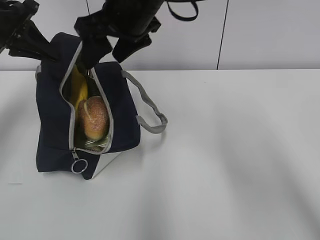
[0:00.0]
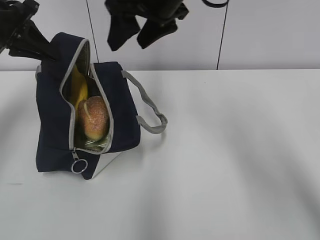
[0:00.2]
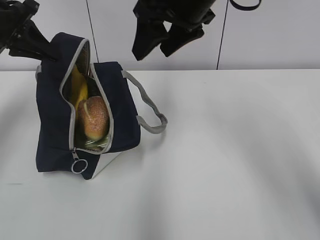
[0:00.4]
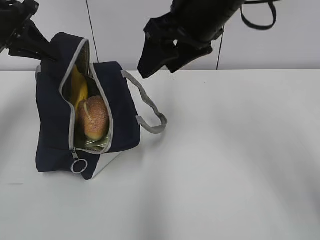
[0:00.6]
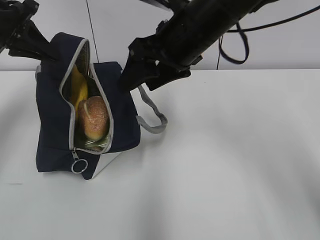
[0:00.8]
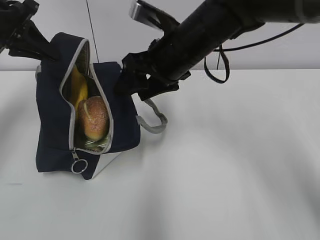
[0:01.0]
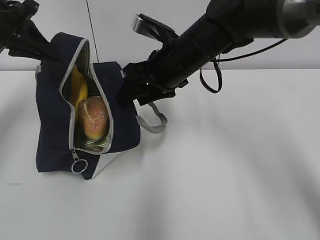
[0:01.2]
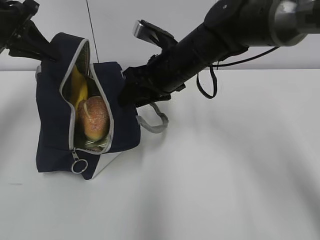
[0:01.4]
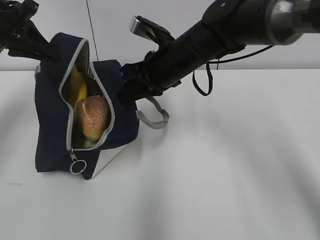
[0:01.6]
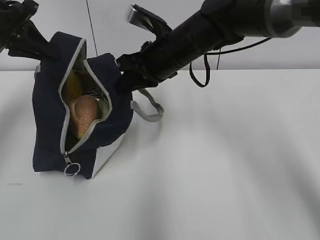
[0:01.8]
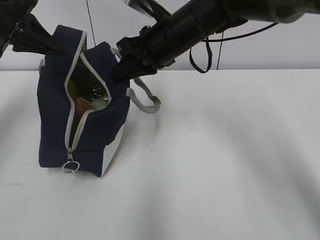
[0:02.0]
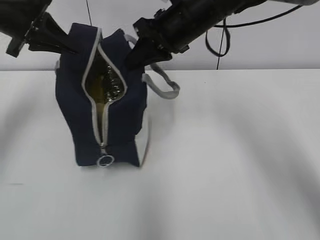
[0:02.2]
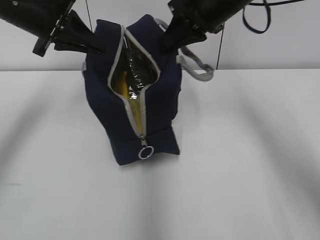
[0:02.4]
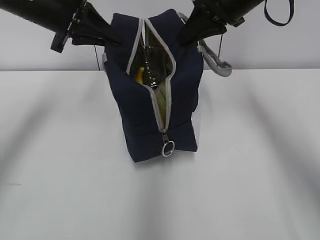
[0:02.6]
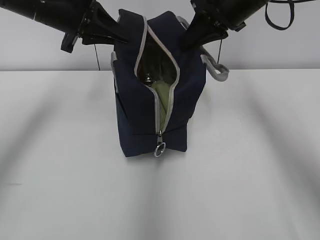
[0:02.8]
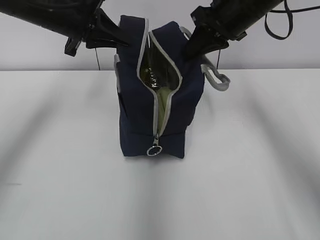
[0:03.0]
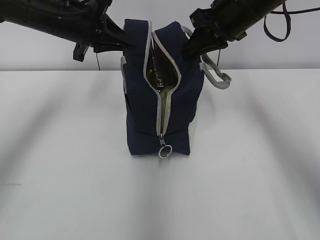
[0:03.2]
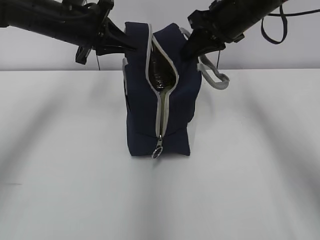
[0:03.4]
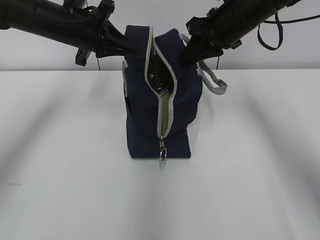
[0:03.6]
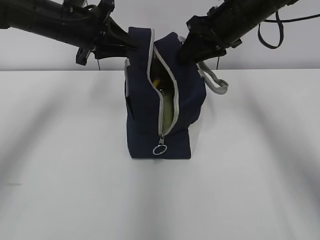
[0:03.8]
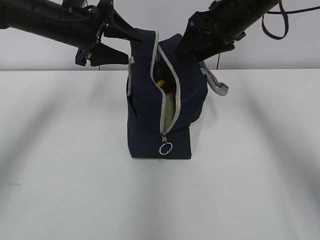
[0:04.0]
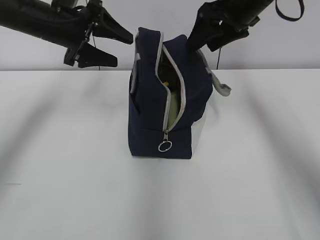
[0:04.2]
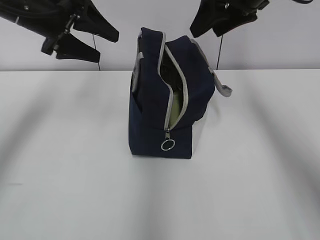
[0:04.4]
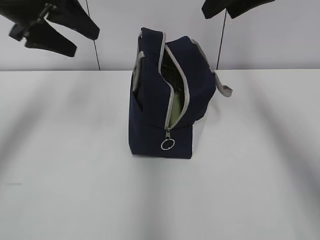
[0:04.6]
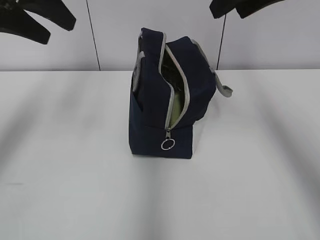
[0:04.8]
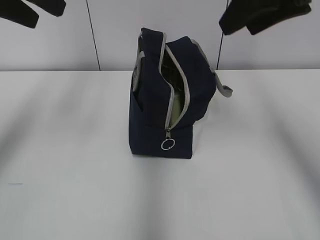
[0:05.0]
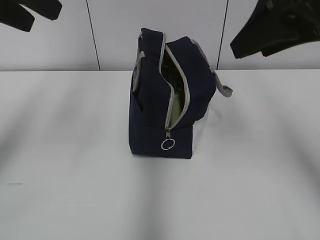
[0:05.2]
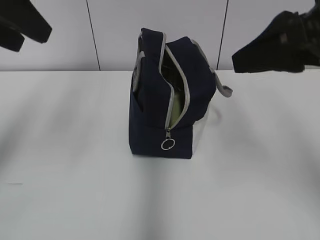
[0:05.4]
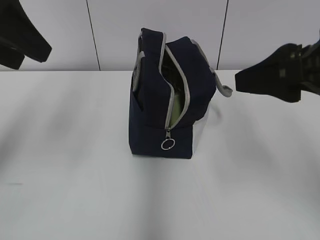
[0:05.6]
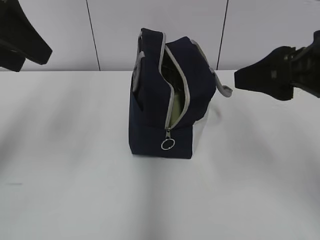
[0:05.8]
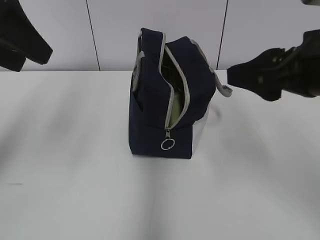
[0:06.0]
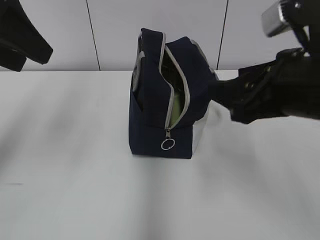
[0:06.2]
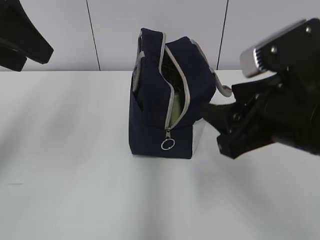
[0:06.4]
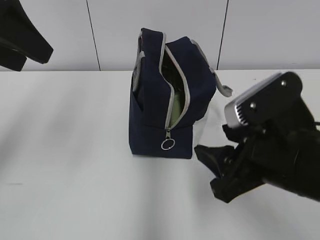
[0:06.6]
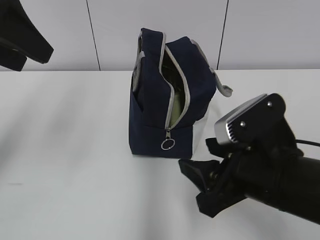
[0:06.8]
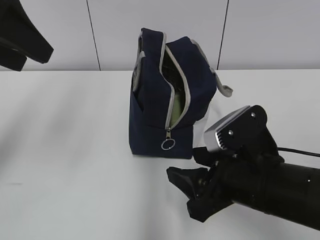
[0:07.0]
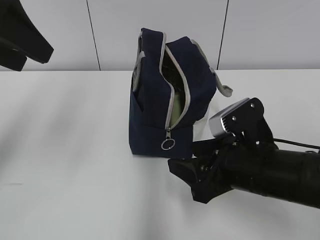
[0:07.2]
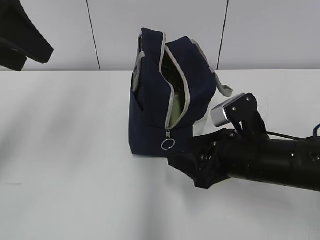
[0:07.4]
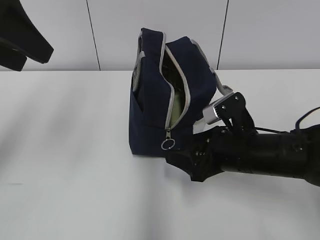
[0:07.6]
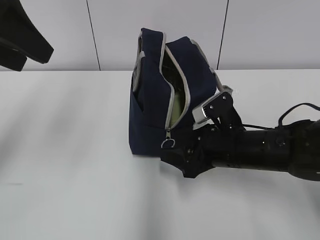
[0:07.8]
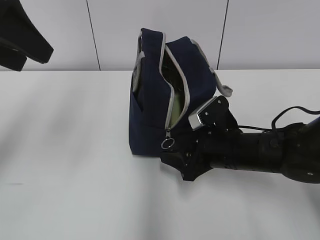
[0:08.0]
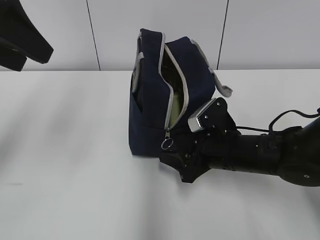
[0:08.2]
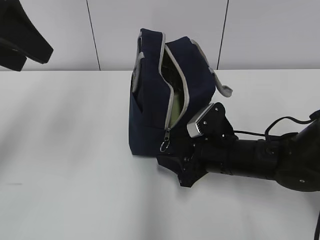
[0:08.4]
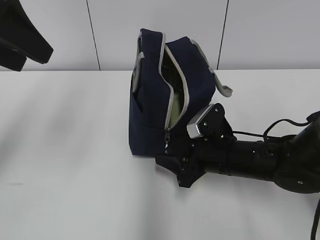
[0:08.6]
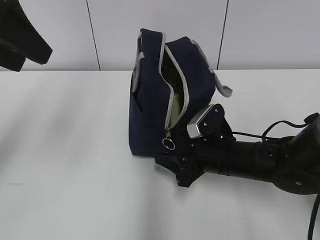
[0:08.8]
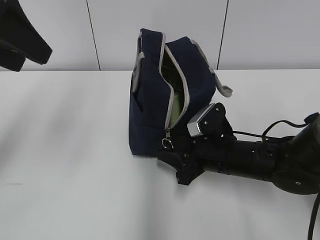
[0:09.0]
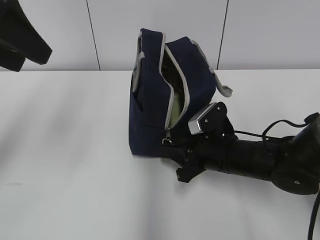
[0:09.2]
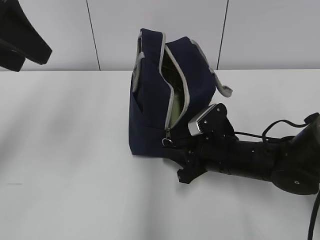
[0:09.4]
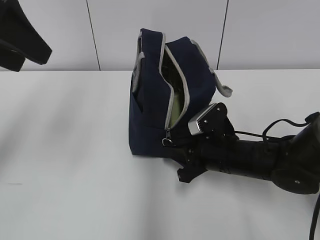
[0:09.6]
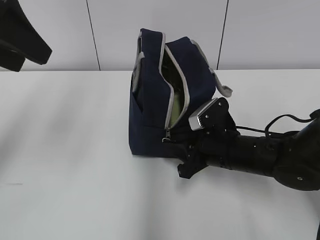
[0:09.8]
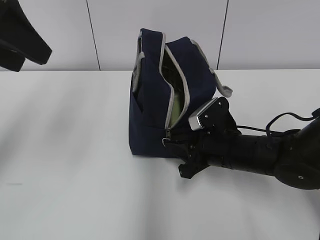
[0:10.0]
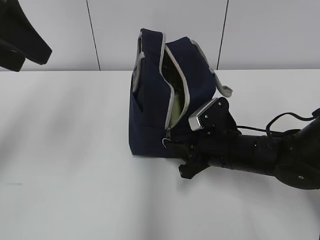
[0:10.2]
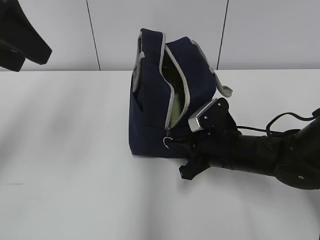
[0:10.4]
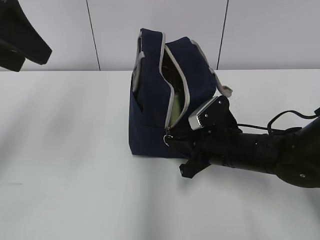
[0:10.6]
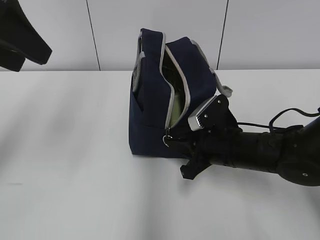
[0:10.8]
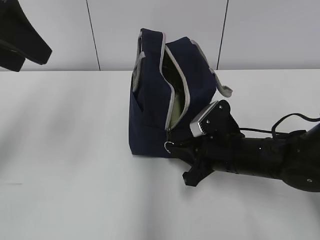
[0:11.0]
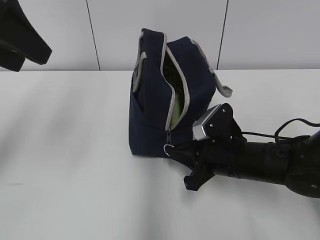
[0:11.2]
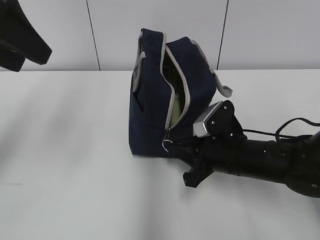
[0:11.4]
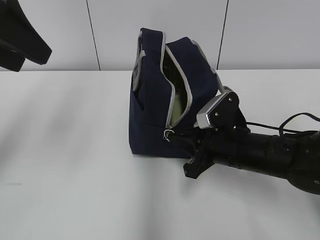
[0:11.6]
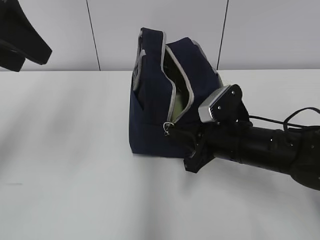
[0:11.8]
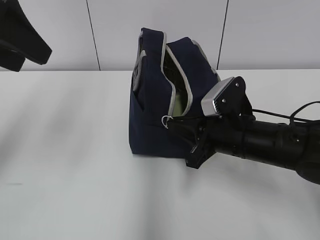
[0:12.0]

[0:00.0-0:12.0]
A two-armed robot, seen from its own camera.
0:00.0 to 0:01.6: The right gripper is displaced downward by about 10 cm, and closes up.
0:01.6 to 0:03.0: The right gripper shifts roughly 15 cm to the right and upward, while the left gripper heads to the right, covering some 10 cm.
0:03.0 to 0:04.4: The right gripper ends up roughly 5 cm from where it was, and opens. The left gripper opens.
0:04.4 to 0:06.0: The right gripper shifts some 20 cm backward. The left gripper is displaced backward and upward by roughly 15 cm.
0:06.0 to 0:07.6: The right gripper travels downward by approximately 15 cm.
0:07.6 to 0:09.0: The right gripper shifts by approximately 5 cm.
0:09.0 to 0:10.4: The right gripper closes.
0:10.4 to 0:12.0: The right gripper is displaced upward by roughly 5 cm.

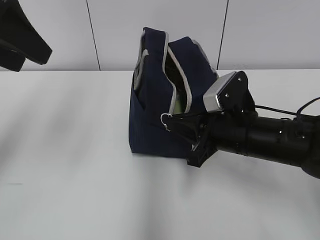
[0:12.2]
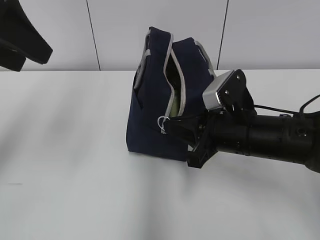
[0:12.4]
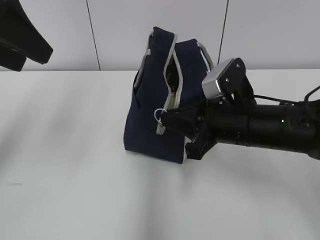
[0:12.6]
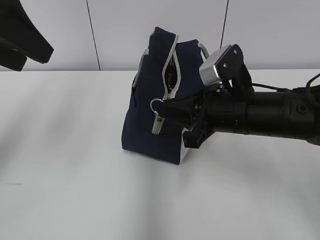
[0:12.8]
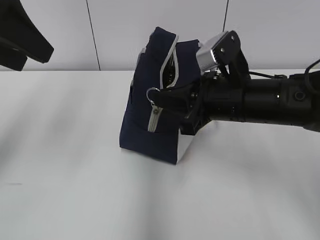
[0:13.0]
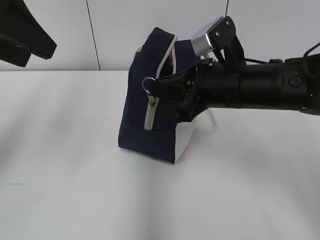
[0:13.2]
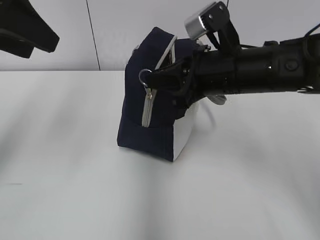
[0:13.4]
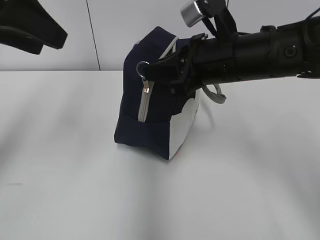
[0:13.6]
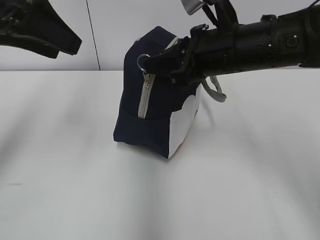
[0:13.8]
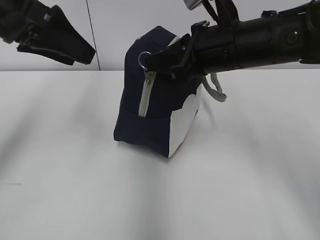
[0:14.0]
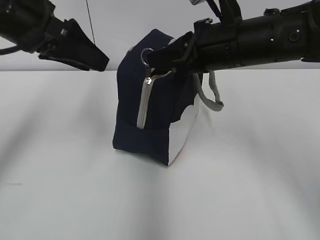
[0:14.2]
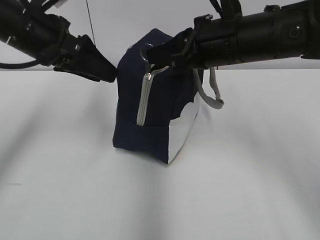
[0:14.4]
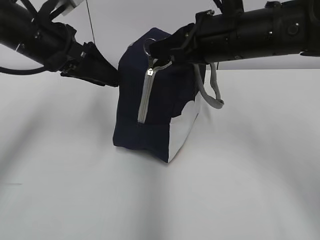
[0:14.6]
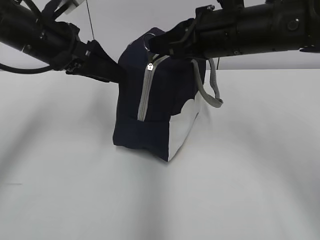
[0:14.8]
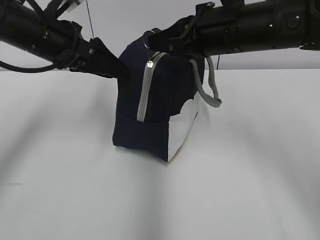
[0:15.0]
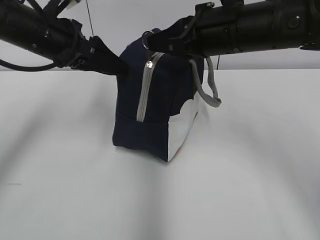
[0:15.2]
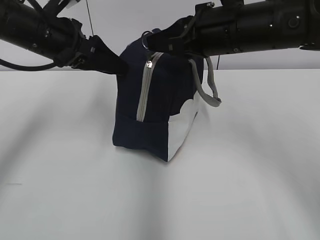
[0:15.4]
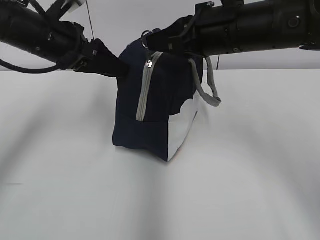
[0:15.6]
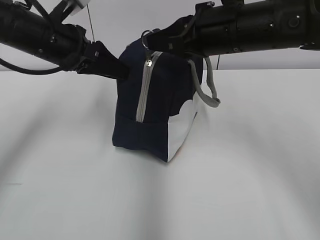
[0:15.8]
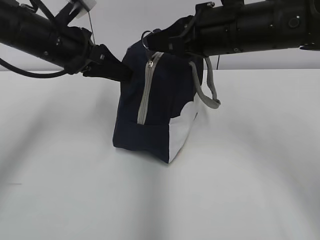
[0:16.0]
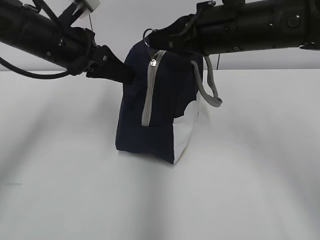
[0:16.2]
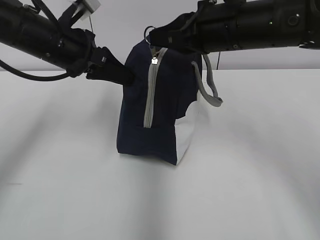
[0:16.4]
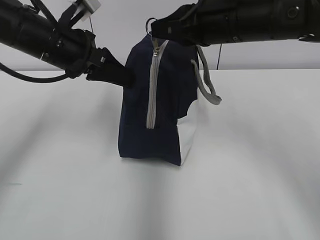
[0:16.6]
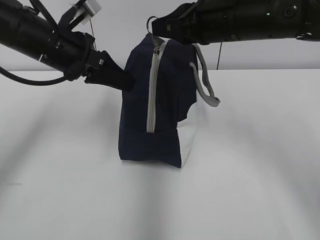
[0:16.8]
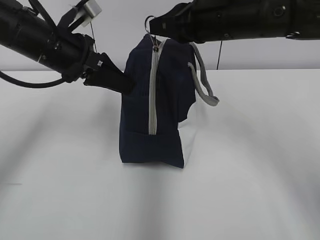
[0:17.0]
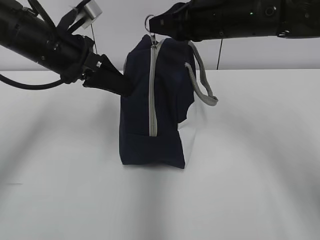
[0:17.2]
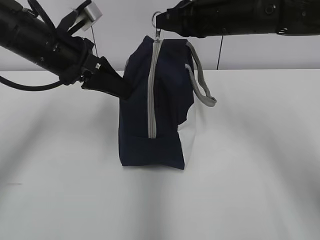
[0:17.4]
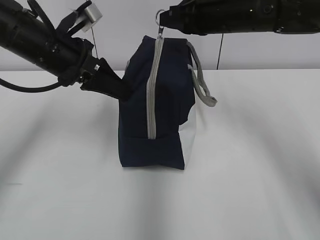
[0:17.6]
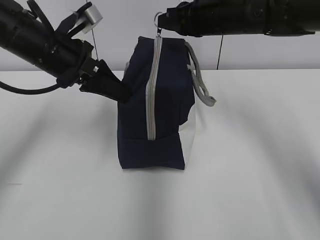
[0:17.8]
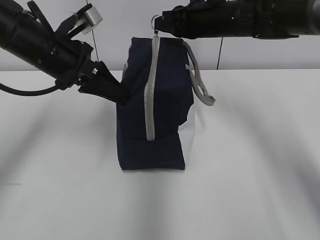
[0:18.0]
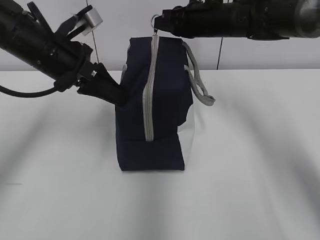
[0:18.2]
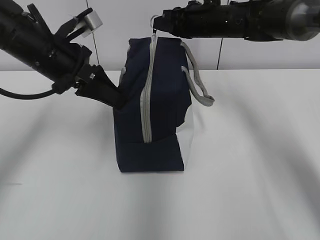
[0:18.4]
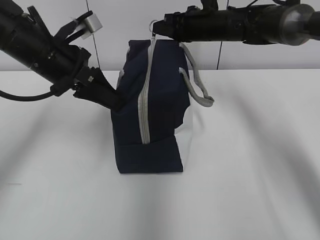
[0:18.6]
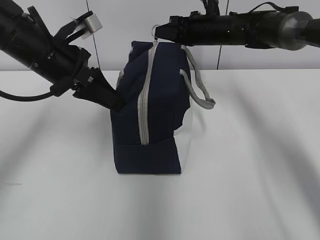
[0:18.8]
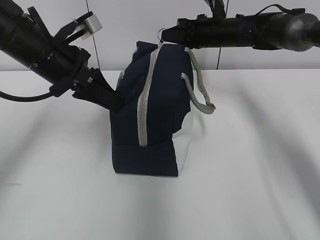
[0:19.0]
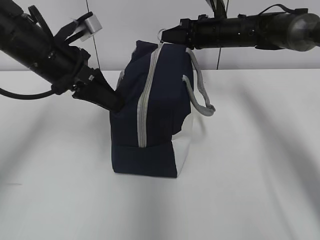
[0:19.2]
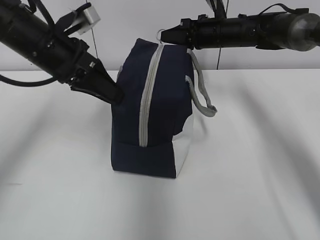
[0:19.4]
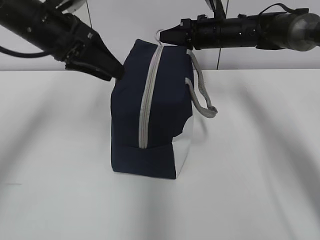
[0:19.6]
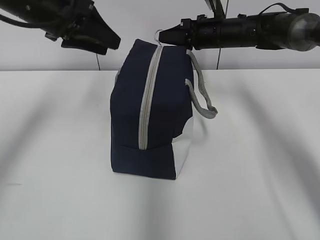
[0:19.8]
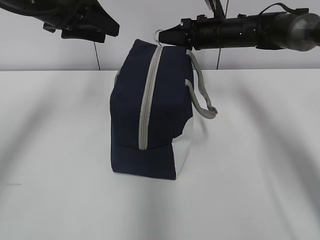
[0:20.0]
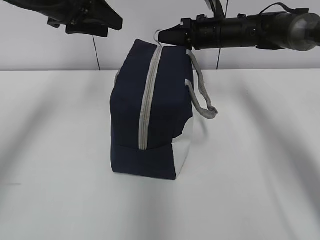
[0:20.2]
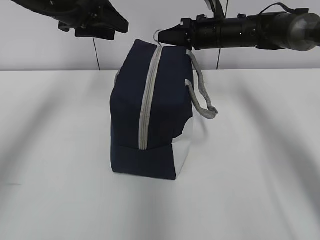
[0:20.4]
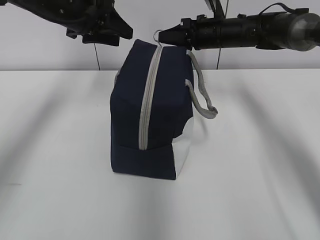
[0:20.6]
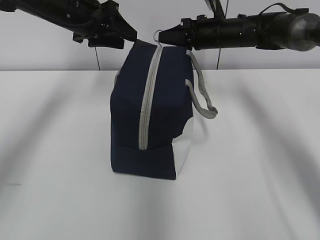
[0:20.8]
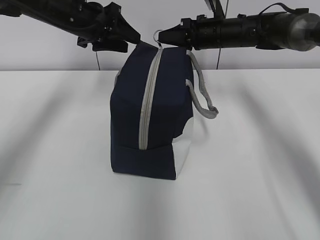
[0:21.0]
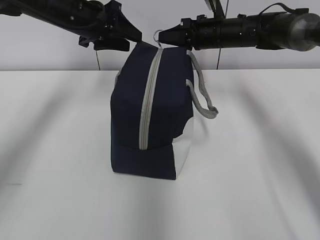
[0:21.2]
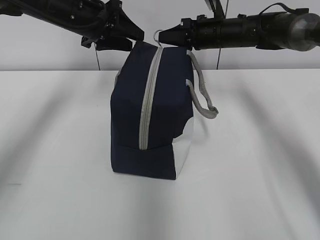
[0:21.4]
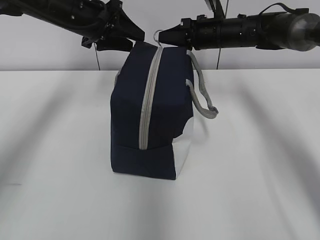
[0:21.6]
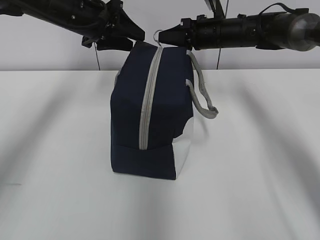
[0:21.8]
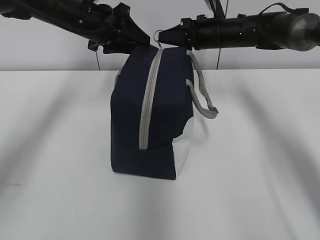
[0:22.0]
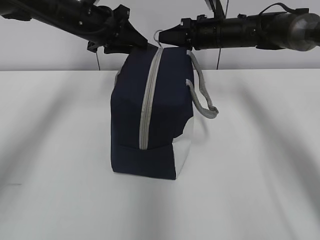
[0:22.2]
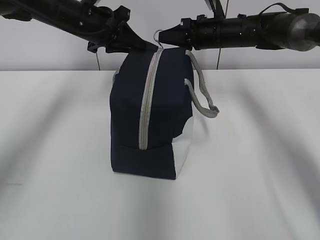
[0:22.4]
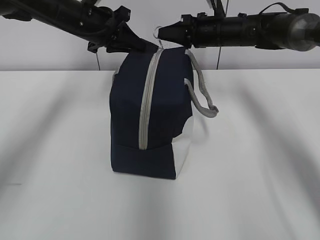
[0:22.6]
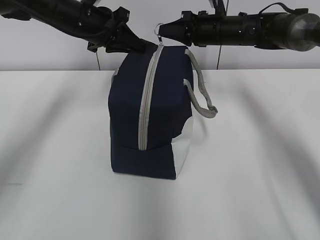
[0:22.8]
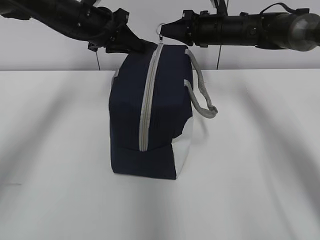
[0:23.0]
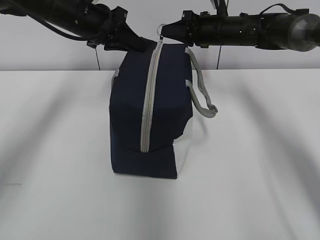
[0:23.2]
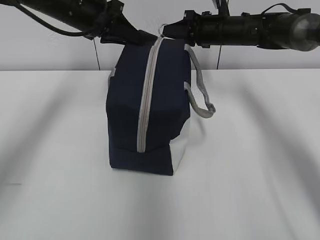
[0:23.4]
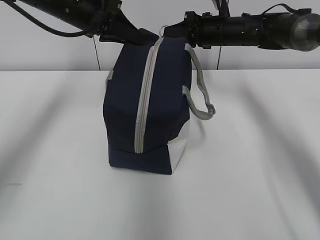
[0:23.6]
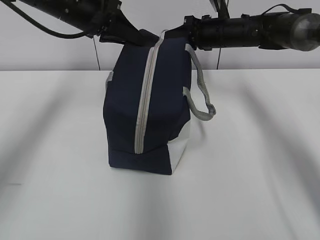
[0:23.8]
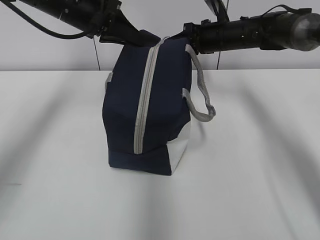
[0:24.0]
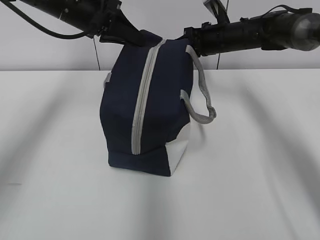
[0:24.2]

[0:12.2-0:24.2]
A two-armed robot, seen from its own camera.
0:12.2 to 0:13.8: The right gripper is displaced upward by roughly 10 cm.
0:13.8 to 0:15.2: The left gripper is displaced downward and forward by roughly 10 cm.
0:15.2 to 0:16.6: The left gripper closes its fingers.
0:16.6 to 0:18.2: The right gripper is displaced forward by roughly 15 cm.
0:18.2 to 0:19.8: The left gripper heads upward, covering about 5 cm, and opens up. The right gripper shifts by some 5 cm.
0:19.8 to 0:21.2: The left gripper is displaced forward by some 10 cm.
0:21.2 to 0:22.6: The left gripper closes its fingers.
0:22.6 to 0:24.2: The grippers move only a little.
